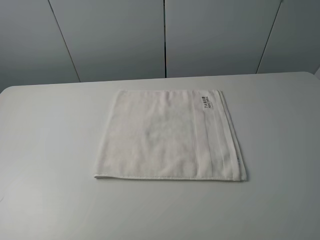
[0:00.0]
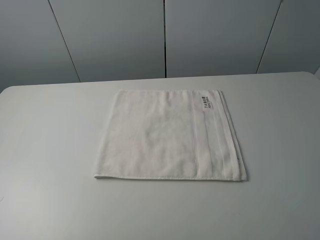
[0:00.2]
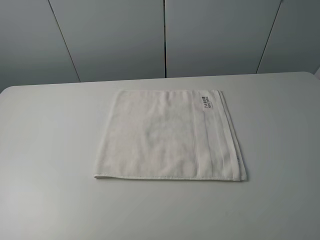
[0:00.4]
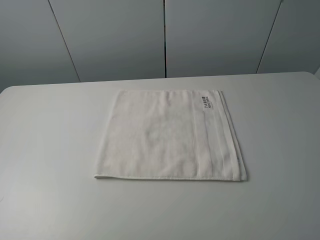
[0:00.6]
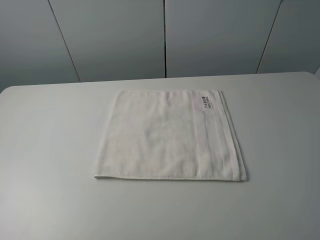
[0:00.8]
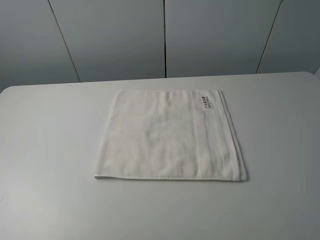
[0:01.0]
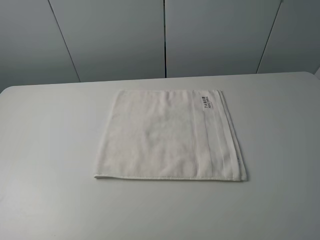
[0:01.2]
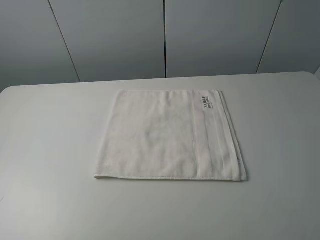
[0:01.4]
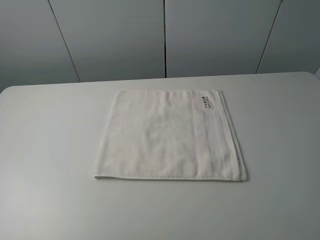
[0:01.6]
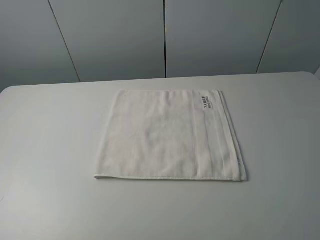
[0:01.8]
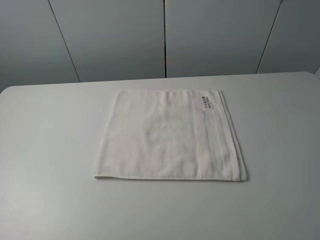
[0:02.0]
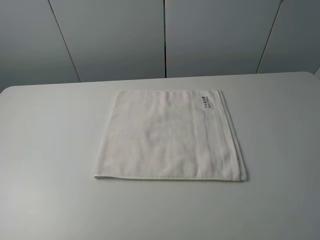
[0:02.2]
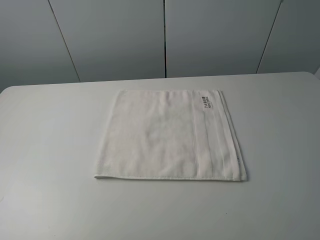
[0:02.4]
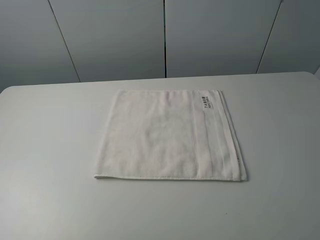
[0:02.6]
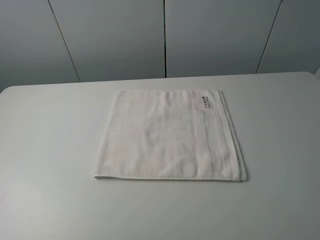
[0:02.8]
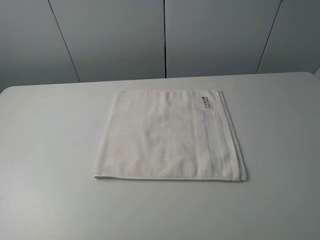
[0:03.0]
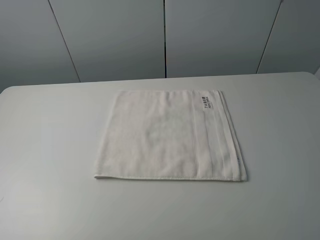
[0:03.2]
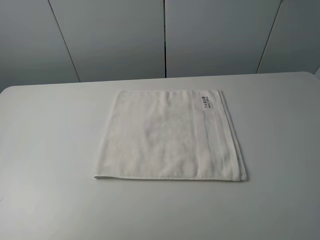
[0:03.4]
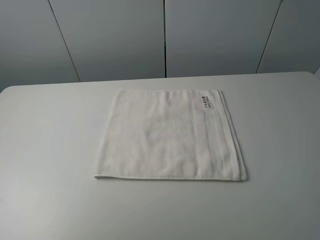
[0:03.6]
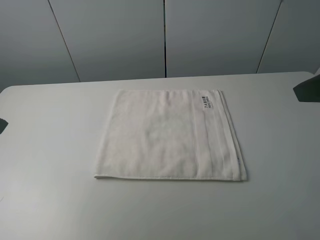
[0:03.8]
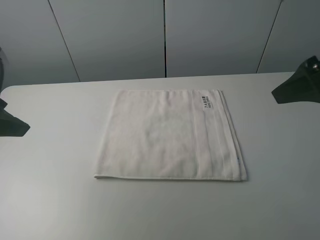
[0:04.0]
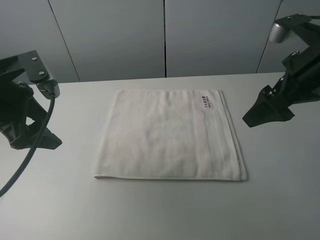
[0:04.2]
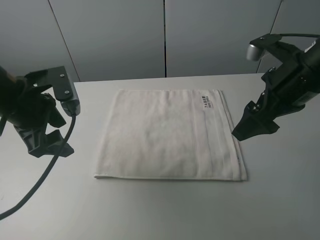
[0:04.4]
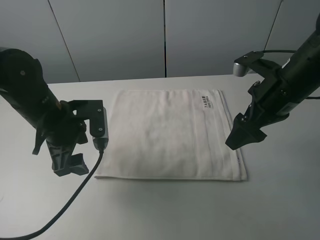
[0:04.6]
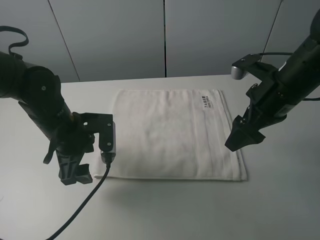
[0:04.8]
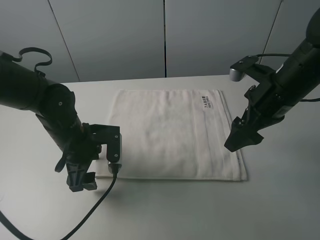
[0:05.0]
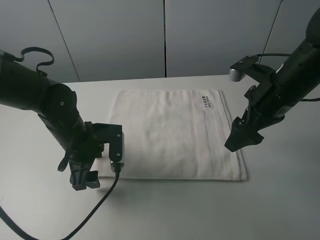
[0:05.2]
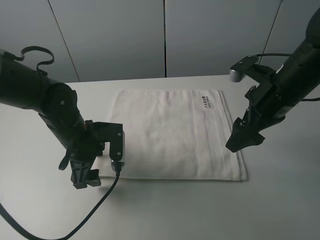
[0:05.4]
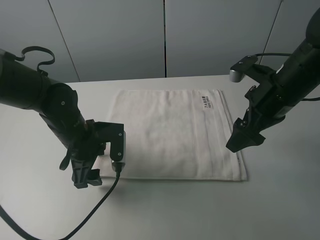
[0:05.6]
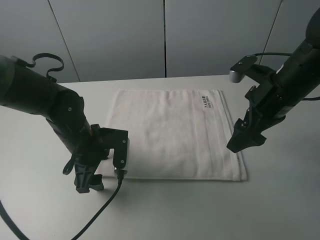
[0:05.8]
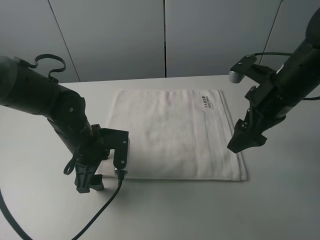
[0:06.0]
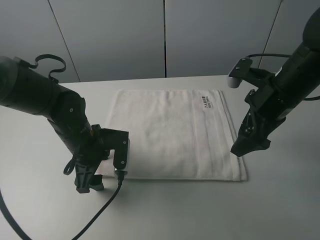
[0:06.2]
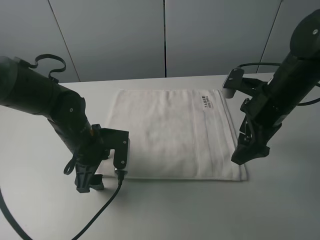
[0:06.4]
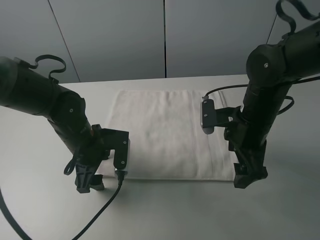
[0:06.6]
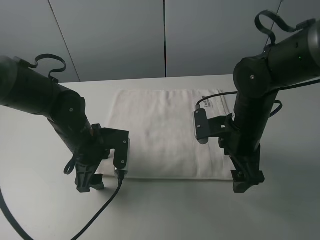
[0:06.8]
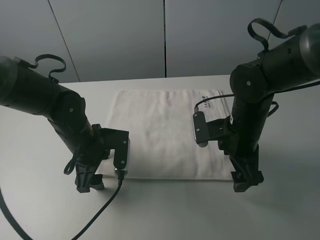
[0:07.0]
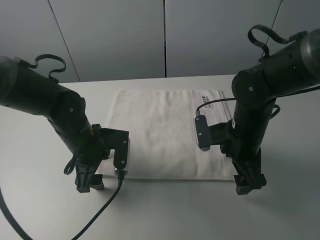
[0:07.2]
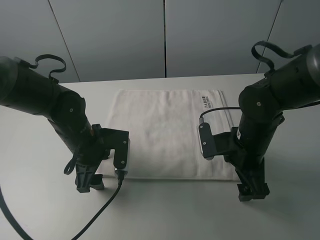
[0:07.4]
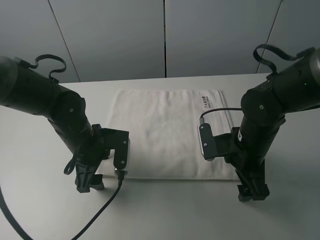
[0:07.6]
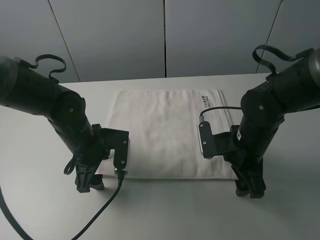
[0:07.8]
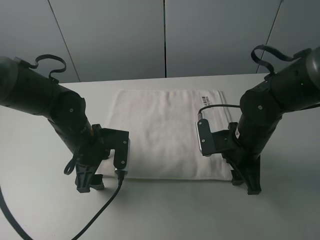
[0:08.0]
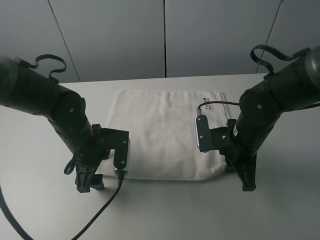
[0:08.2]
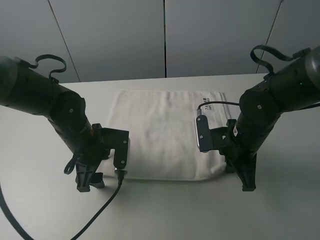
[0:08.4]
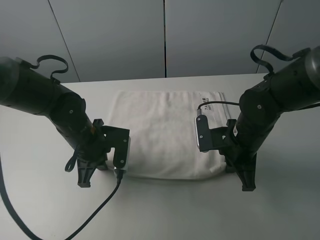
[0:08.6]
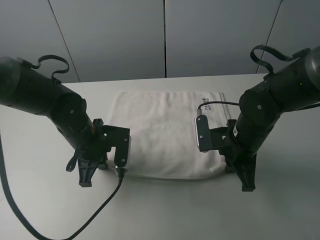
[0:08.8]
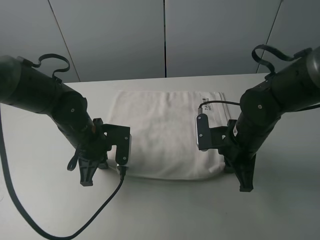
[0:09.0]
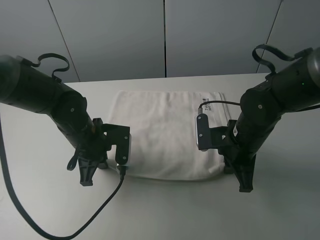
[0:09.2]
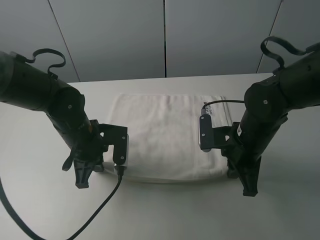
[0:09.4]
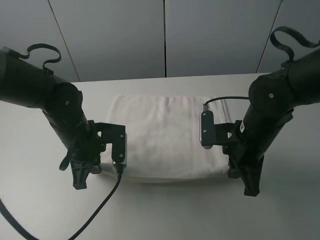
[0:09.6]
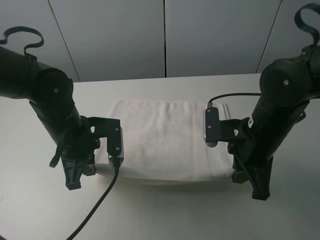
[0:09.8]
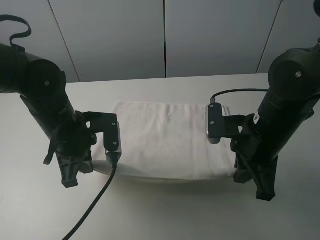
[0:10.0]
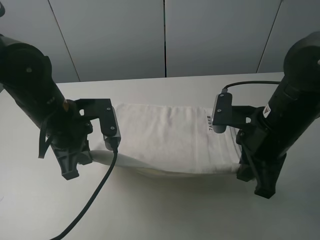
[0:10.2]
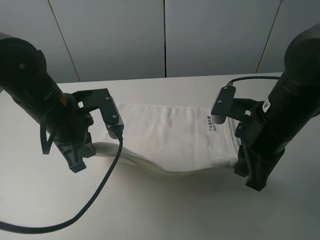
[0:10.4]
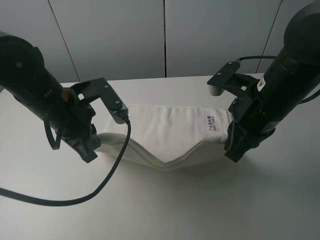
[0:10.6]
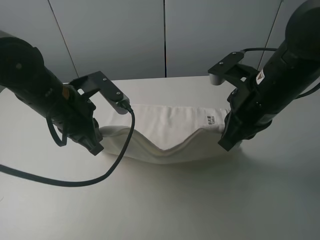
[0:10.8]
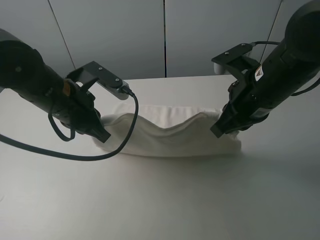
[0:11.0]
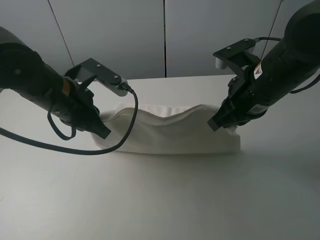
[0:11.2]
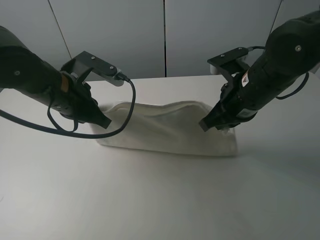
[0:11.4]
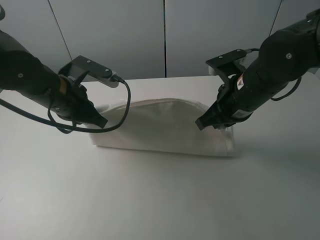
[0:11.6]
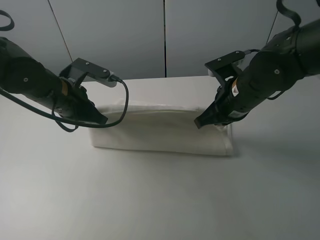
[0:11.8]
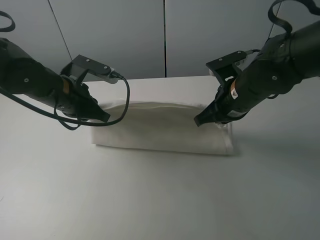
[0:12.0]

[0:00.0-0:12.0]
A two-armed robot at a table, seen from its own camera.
Task of the whole recording: fold the towels on the table.
Step, 0.0 to 8.2 s: Grasp the white towel with the right gripper.
Step, 8.4 to 8.8 s: Grasp the white towel with the left gripper.
0.0 to 1.6 s: Both grippers stay put.
3.0 to 4.4 s: The right gripper moves forward, some 25 cm, while the left gripper travels forward and to the right by about 25 cm.
4.4 to 6.0 s: The left gripper shifts roughly 15 cm downward and to the right.
6.0 to 7.6 s: The right gripper heads downward, covering about 10 cm.
7.6 to 9.0 s: The left gripper closes its fingers. Meanwhile the right gripper closes its fingers.
9.0 to 10.4 s: The grippers both shift upward by roughly 10 cm.
10.4 to 12.0 s: Both grippers move forward, about 5 cm.

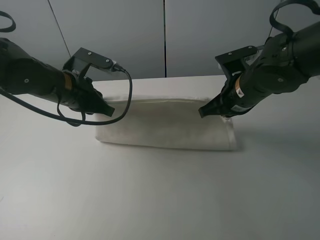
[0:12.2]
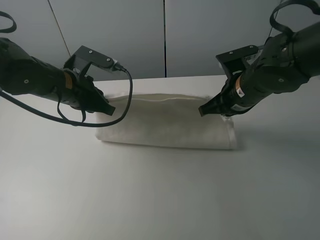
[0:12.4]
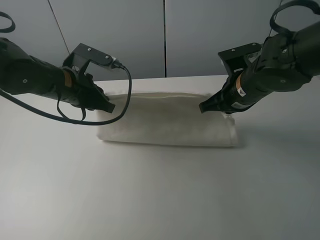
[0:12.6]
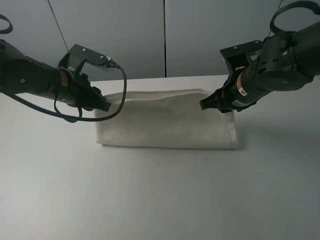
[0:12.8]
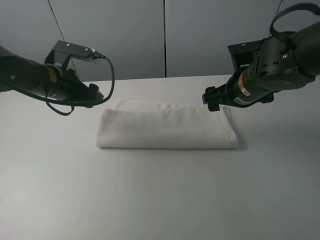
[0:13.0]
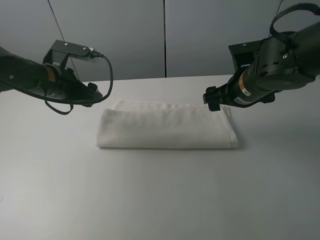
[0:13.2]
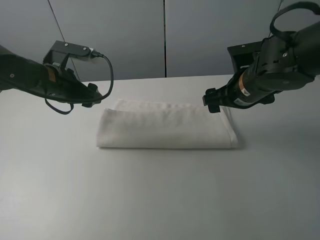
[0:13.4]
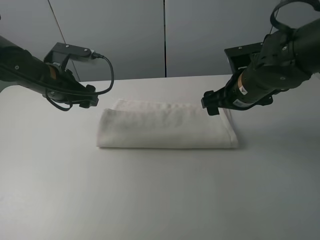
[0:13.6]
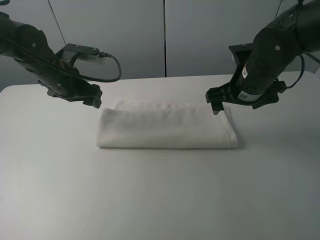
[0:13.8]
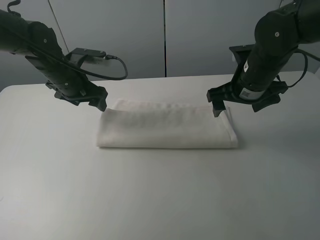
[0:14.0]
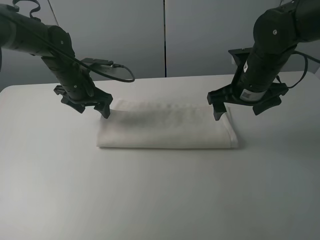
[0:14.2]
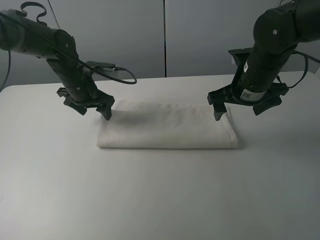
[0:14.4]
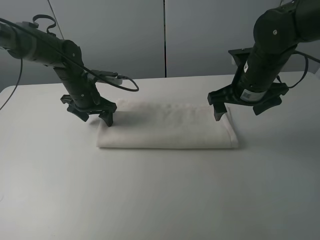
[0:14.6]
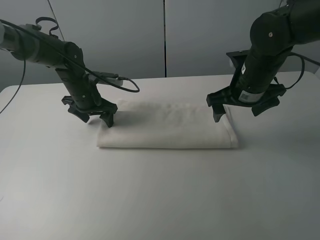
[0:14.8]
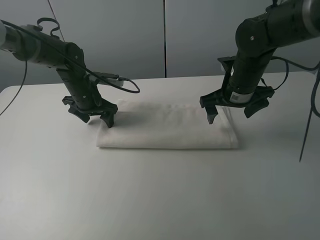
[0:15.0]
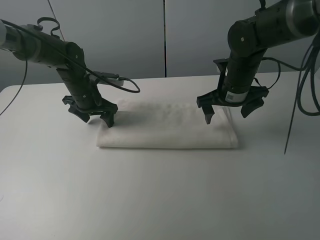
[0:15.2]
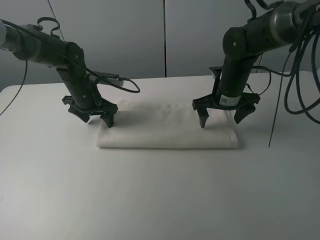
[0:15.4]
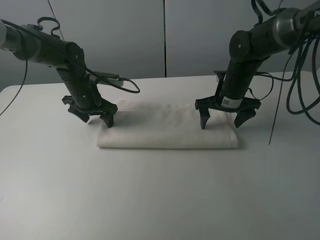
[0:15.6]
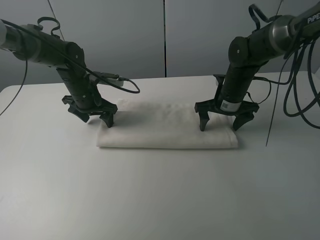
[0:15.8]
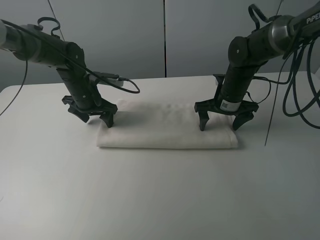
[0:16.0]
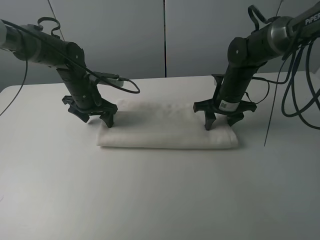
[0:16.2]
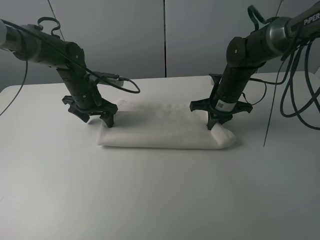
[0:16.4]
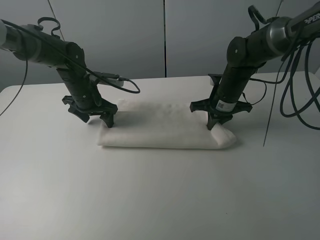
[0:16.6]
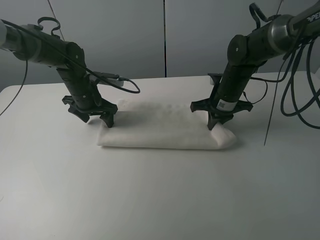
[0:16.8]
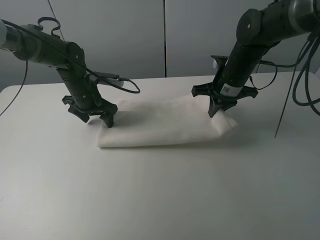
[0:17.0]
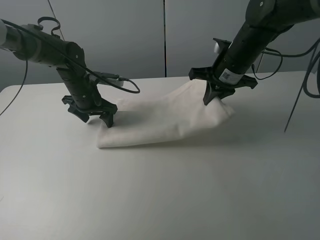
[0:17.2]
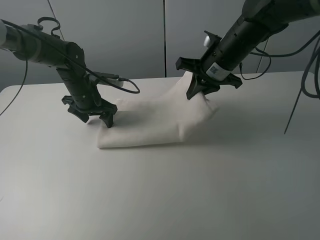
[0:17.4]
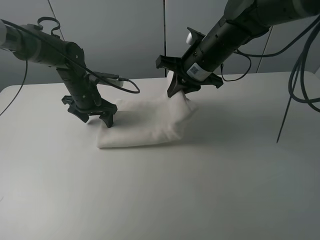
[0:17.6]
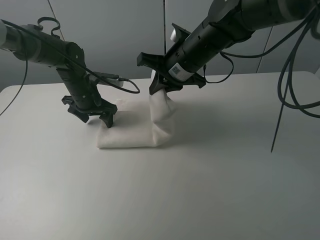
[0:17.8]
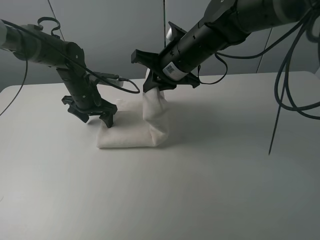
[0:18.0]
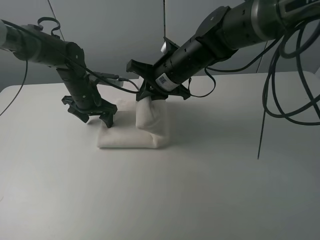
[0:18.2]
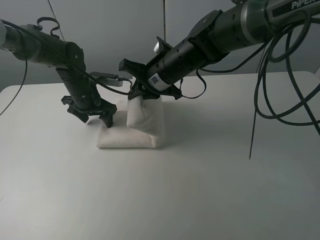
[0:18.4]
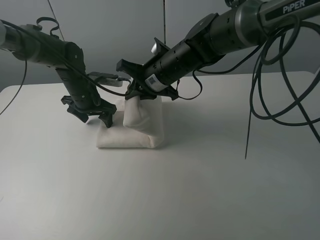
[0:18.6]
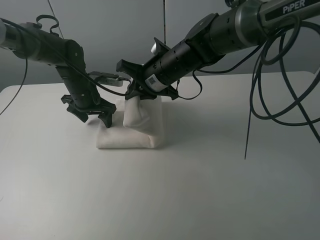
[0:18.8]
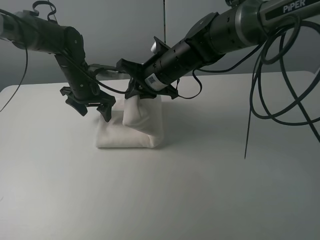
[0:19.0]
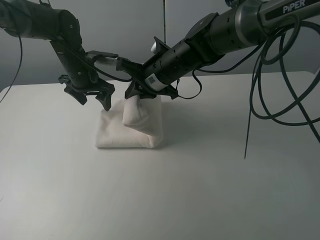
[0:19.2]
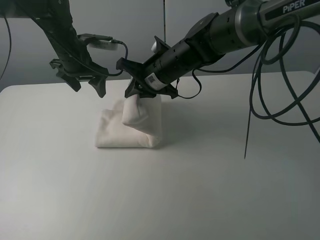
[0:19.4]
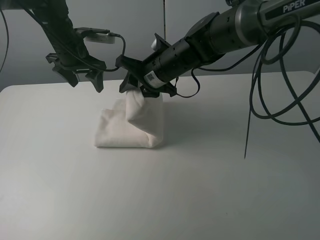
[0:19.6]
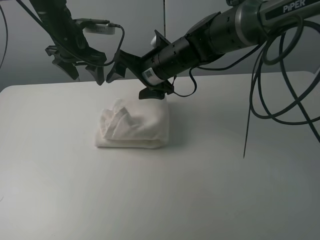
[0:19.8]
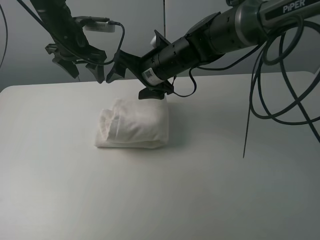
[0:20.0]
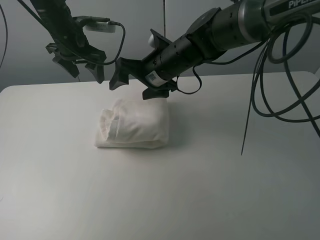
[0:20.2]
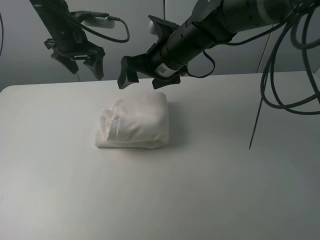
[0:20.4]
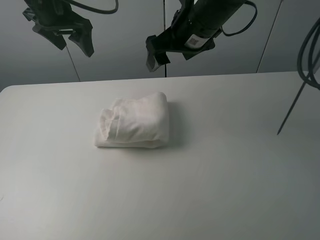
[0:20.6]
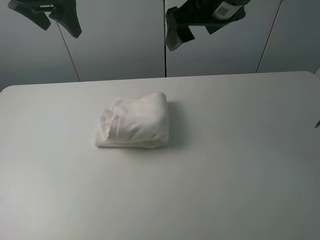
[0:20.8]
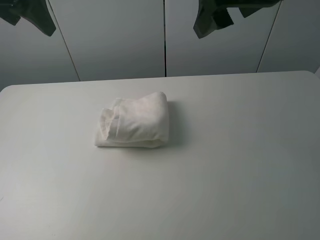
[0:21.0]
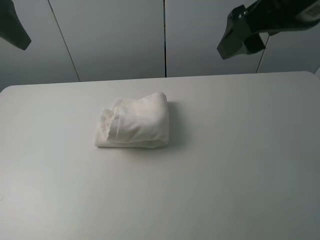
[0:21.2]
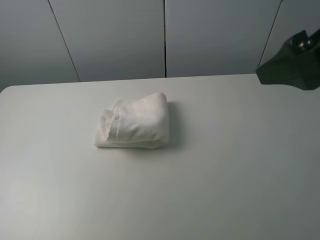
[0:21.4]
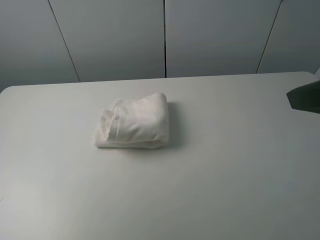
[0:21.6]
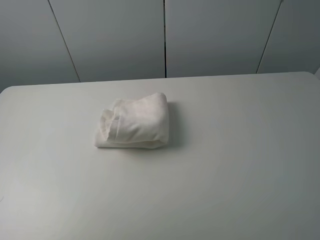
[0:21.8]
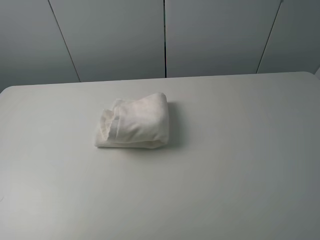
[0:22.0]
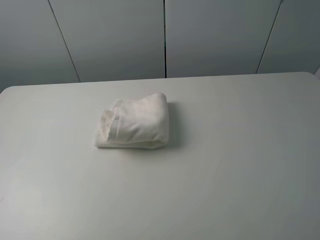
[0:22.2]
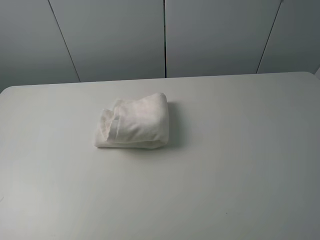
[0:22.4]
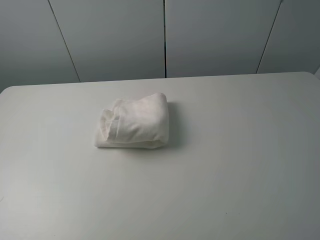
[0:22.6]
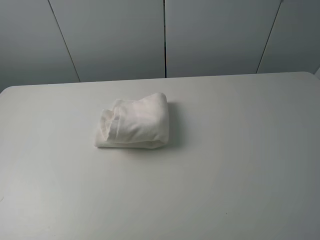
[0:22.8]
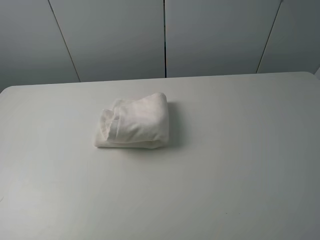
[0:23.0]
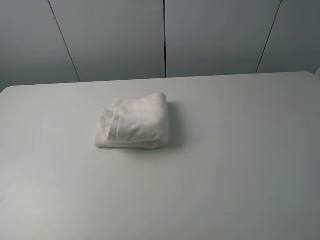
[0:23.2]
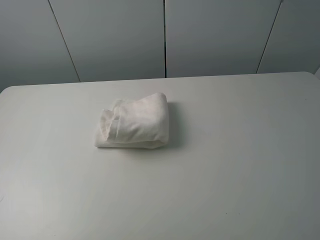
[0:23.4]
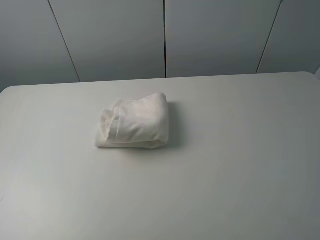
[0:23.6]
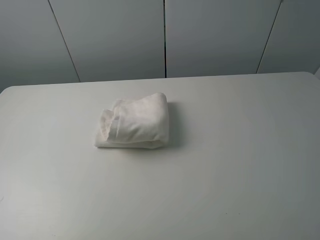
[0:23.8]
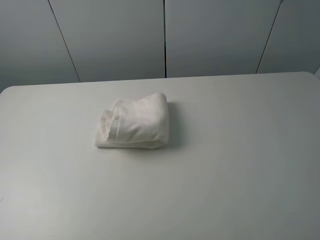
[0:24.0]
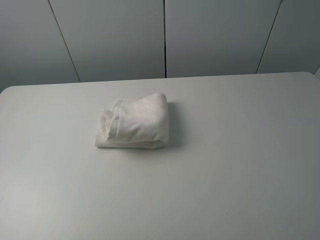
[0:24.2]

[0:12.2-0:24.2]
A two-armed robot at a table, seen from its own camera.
Task of the whole recording: fold the towels on the table.
Step, 13.2 to 14.8 s: Press on the white towel with the left gripper.
Step, 15.0 to 20.0 s: Fold the white towel from right to left with right gripper.
12.2 to 13.8 s: The right gripper opens. The left gripper shifts about 5 cm forward, and opens.
13.8 to 15.2 s: The left gripper heads downward, covering approximately 5 cm. Meanwhile the right gripper shifts by some 5 cm.
15.2 to 16.6 s: The right gripper moves roughly 5 cm, and closes up.
16.6 to 18.2 s: The right gripper heads to the left and upward, covering about 15 cm.
18.2 to 19.8 s: The right gripper opens its fingers. The left gripper moves upward, some 15 cm.
19.8 to 21.2 s: The left gripper travels backward and upward by roughly 25 cm. The right gripper travels upward, to the right and backward by about 30 cm.
21.2 to 22.6 s: The left gripper goes about 25 cm backward. Meanwhile the right gripper goes approximately 25 cm backward and to the right.
